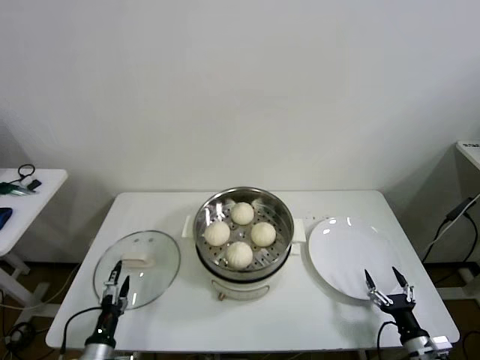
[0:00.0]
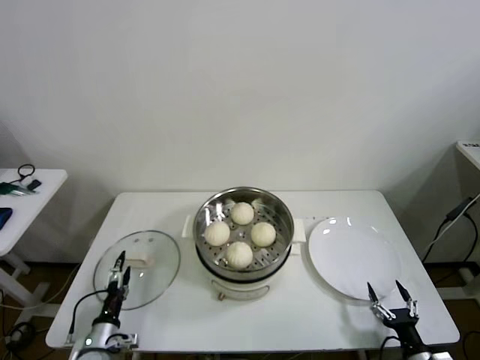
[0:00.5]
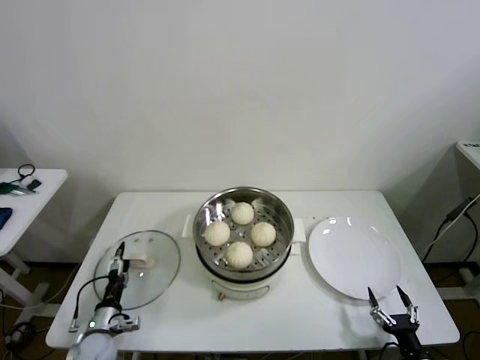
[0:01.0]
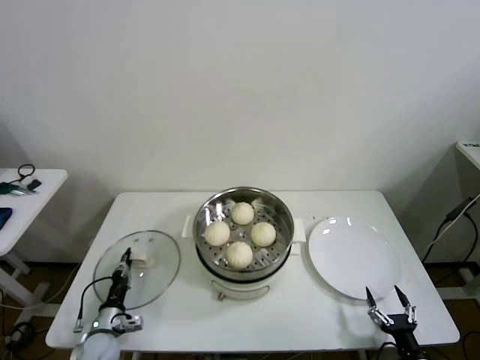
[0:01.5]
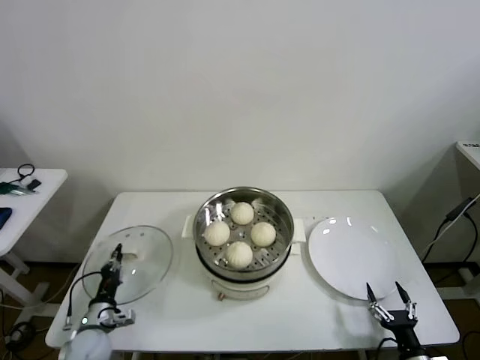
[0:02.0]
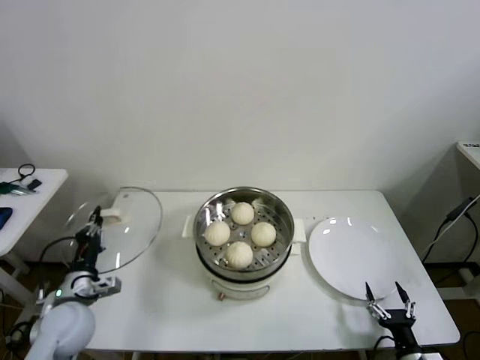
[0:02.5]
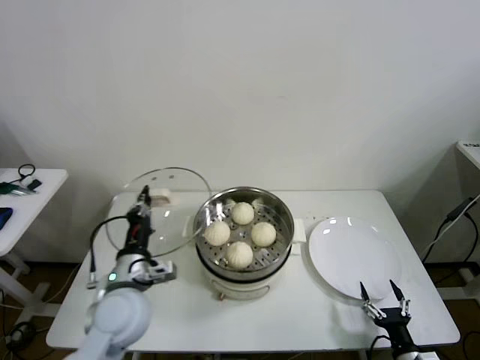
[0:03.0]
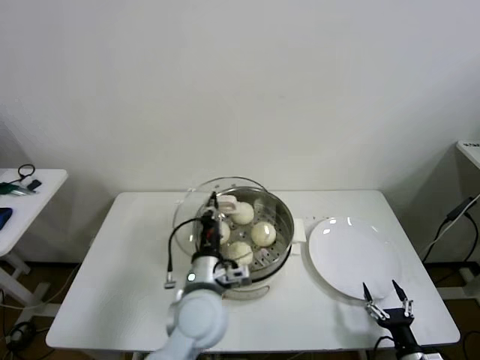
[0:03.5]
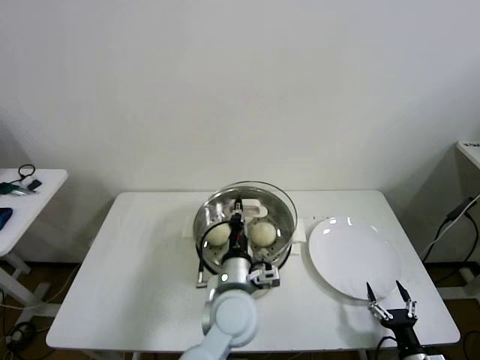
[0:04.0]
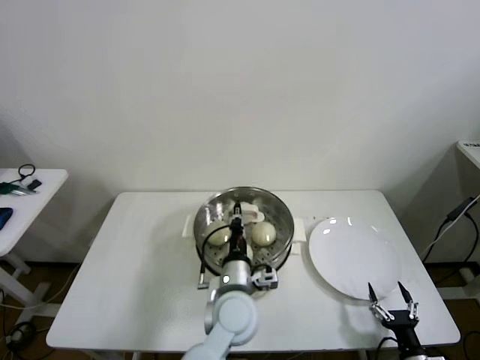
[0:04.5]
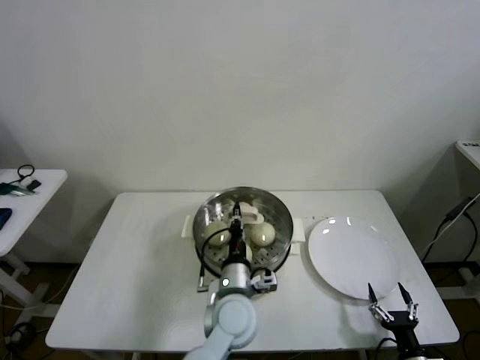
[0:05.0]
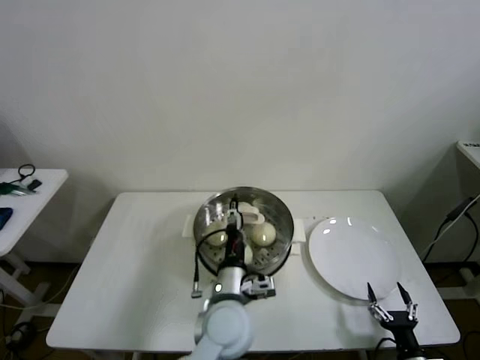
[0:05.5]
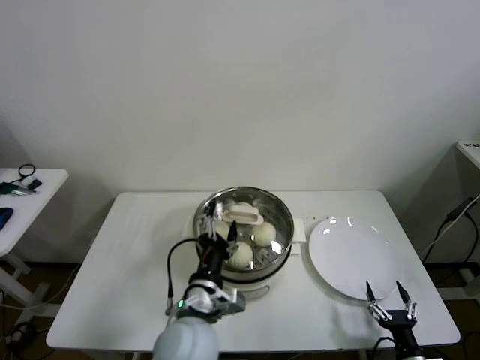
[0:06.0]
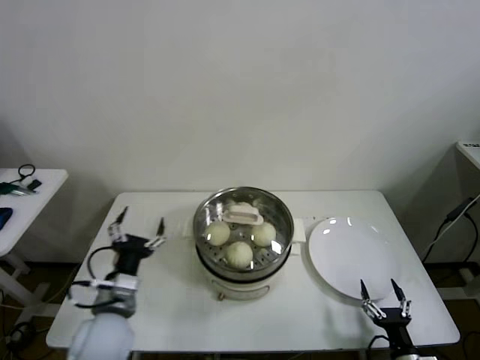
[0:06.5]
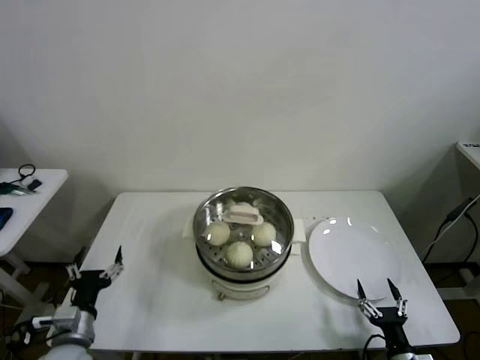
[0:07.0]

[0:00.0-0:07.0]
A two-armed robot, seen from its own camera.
Task of the whole recording: take steamed baozi put them in steamer then cover it.
Step, 0:02.0 to 0:05.5: Place the pot lid on the steamer with left gripper.
0:00.0 to 0:02.0: The left gripper shifts about 10 cm forward, and closes.
0:02.0 to 0:03.5: The left gripper moves to the right and upward, about 35 cm.
0:03.5 to 0:05.0: The left gripper shifts some 10 cm to the right and downward.
0:05.0 to 0:07.0: The left gripper moves to the left, approximately 30 cm, and opens up.
